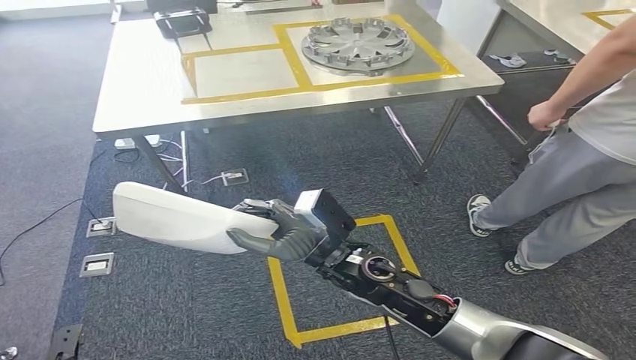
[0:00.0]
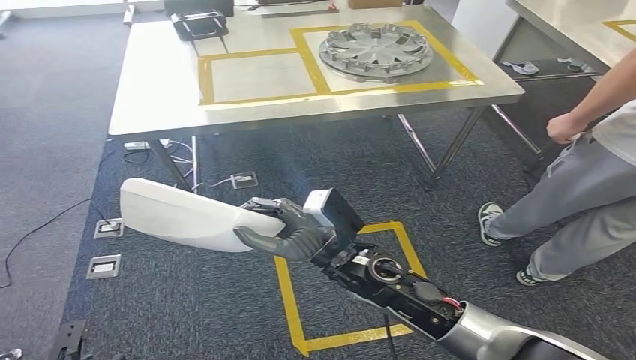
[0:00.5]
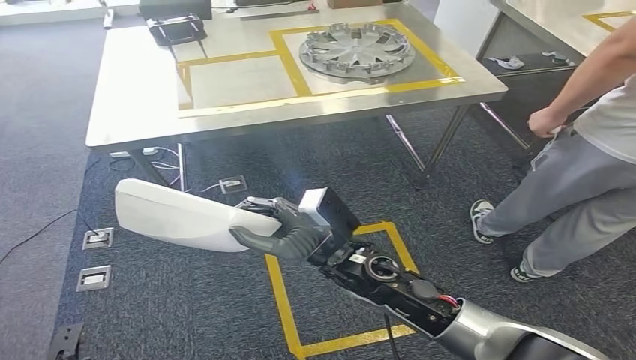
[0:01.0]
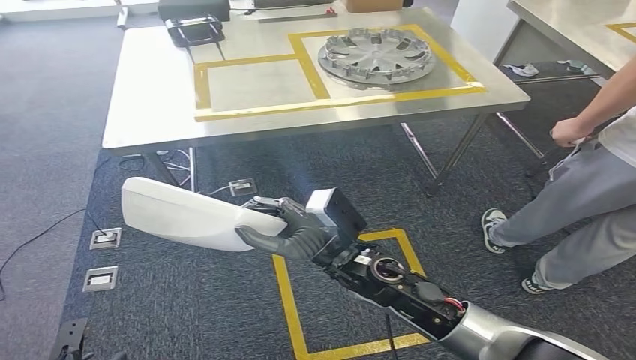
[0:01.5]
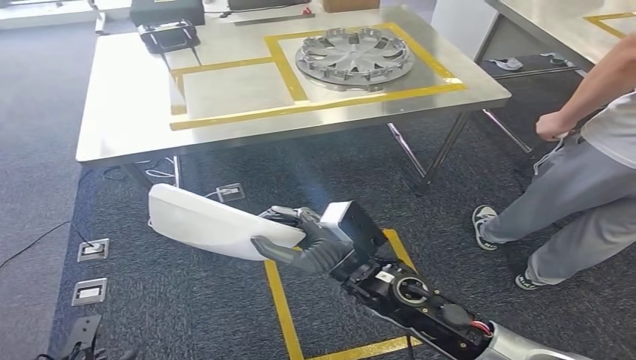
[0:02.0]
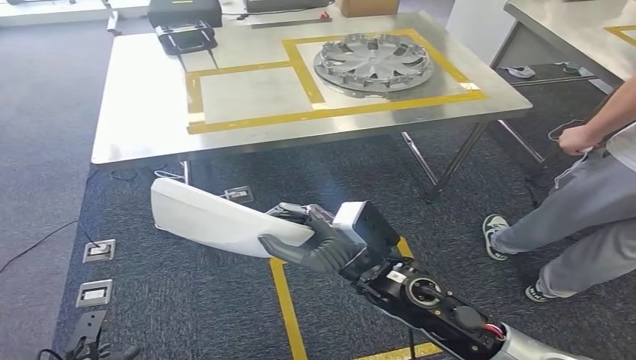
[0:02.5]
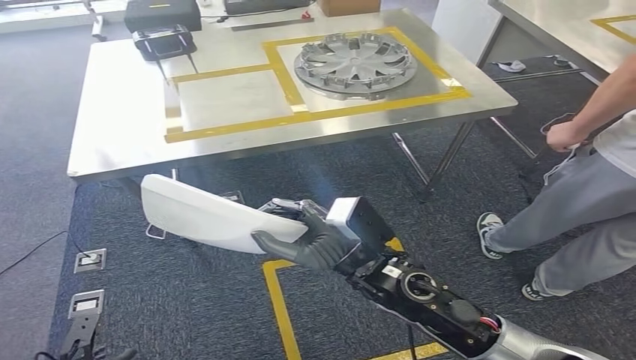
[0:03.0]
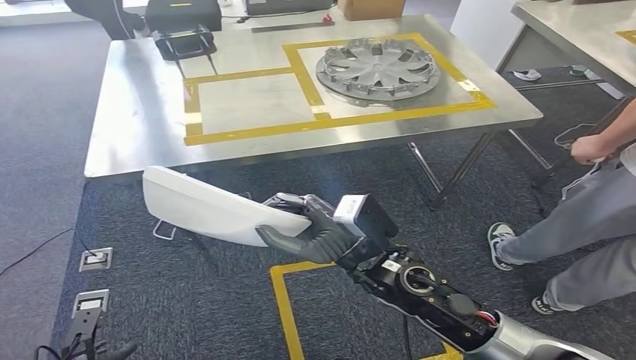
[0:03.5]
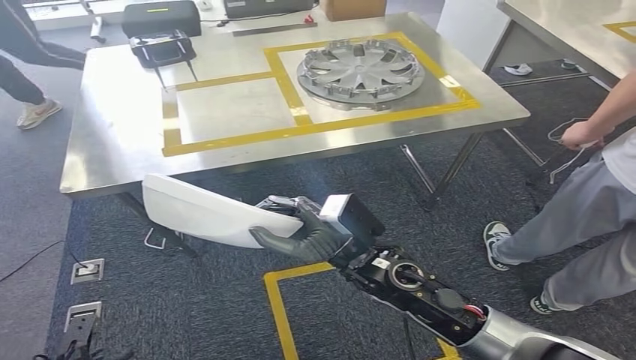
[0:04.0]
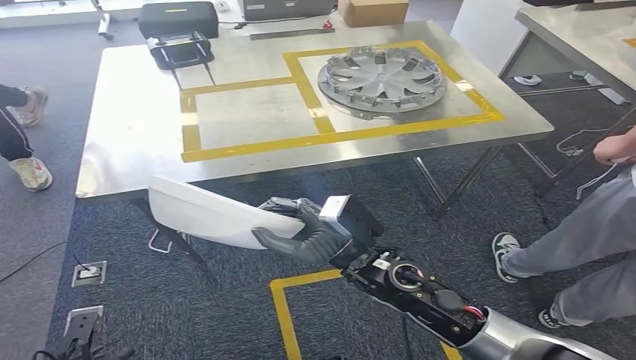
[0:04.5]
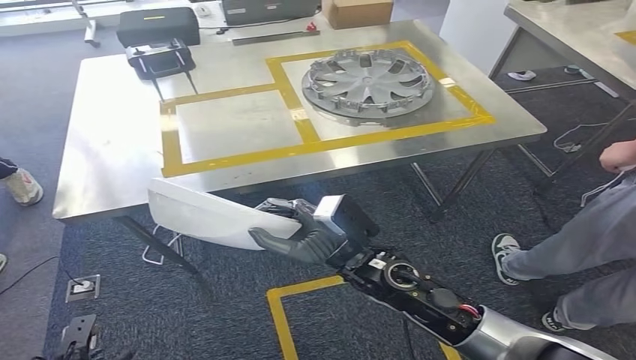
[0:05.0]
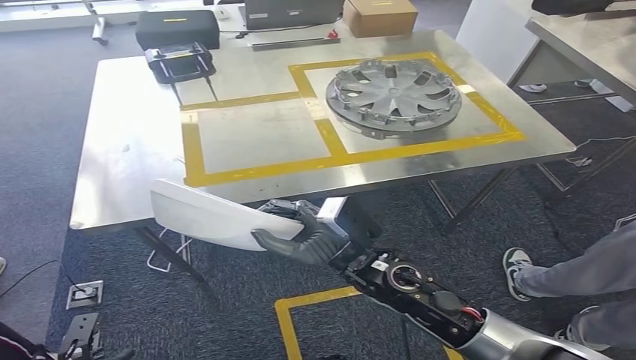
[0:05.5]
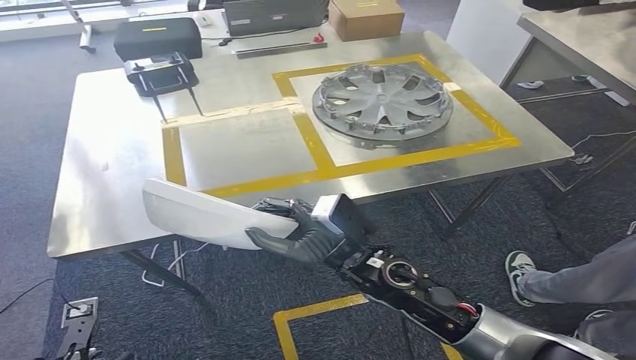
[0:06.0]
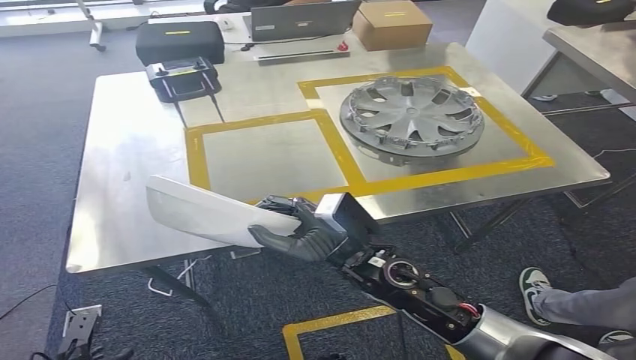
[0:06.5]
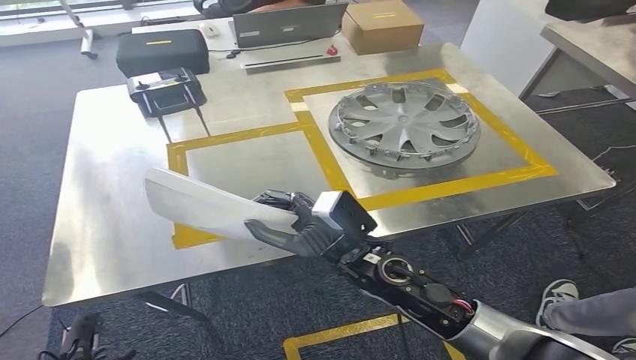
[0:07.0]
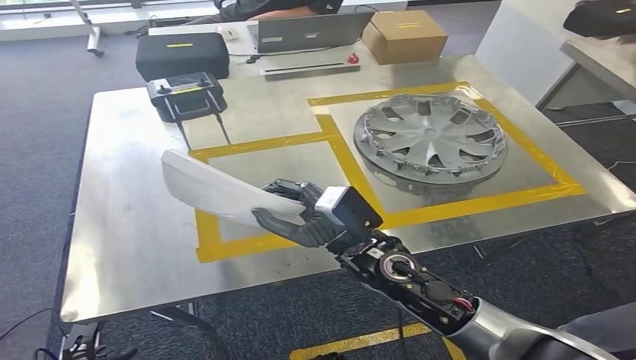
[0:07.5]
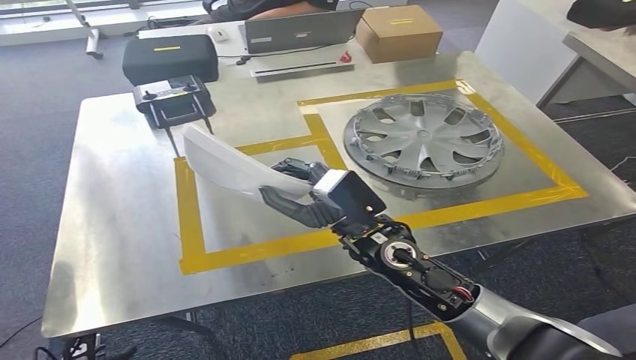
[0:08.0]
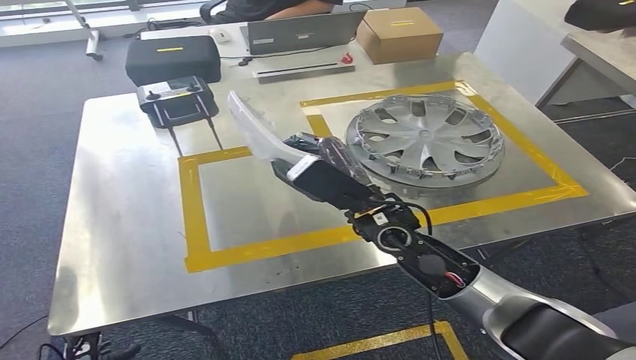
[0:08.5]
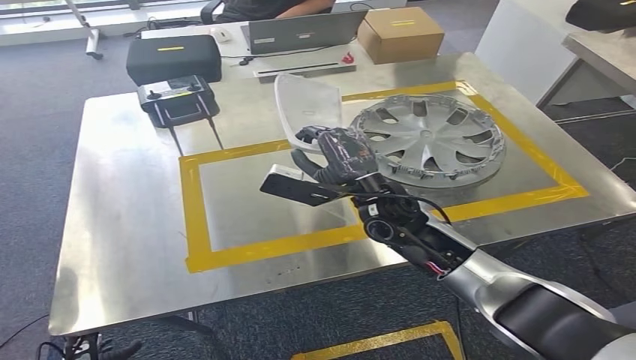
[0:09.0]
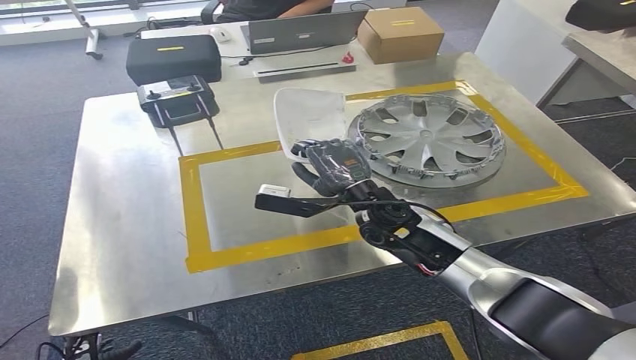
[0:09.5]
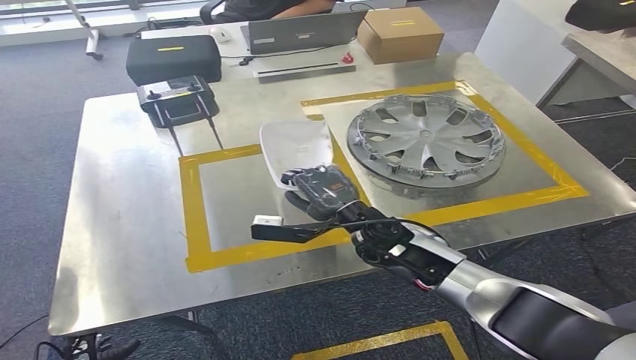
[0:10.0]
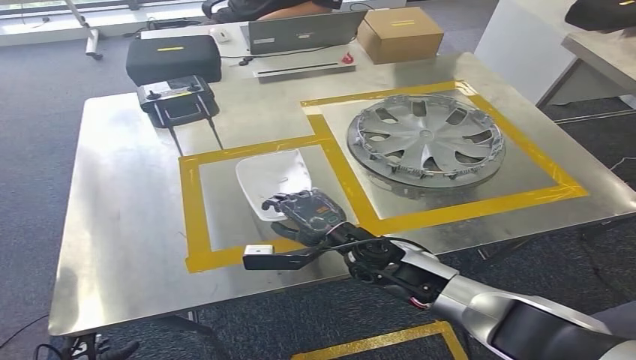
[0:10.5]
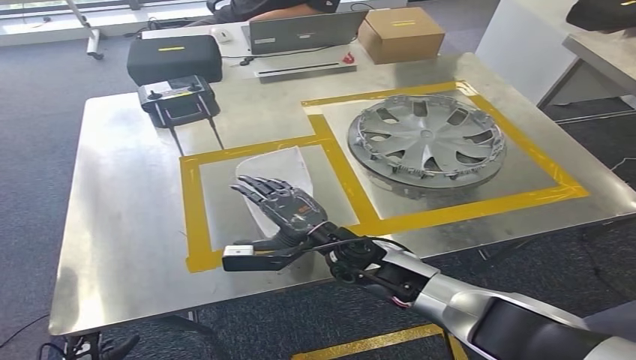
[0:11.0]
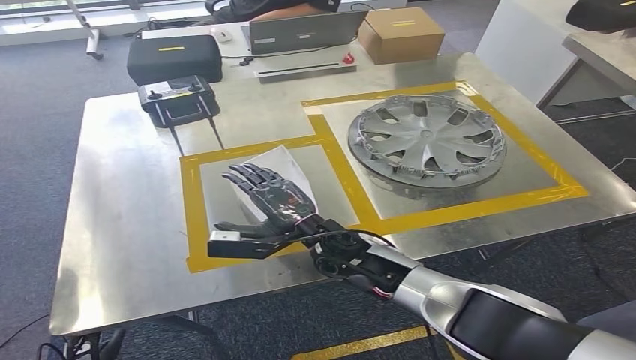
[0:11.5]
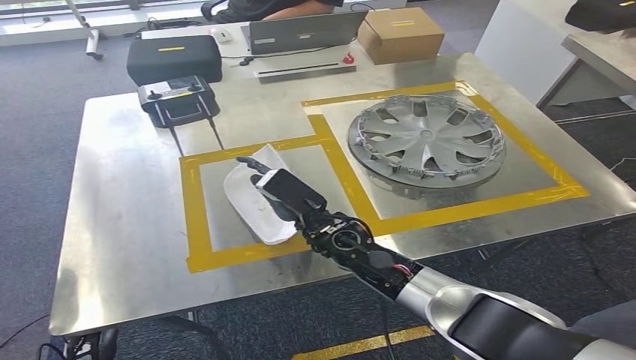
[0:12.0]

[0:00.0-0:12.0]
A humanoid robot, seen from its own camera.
Step, 0:00.0 to 0:06.5: Move the small parts to the workbench.
0:08.0 to 0:10.0: The right hand is displaced downward and forward by roughly 10 cm.
0:10.0 to 0:12.0: The right hand is displaced to the left by about 5 cm.

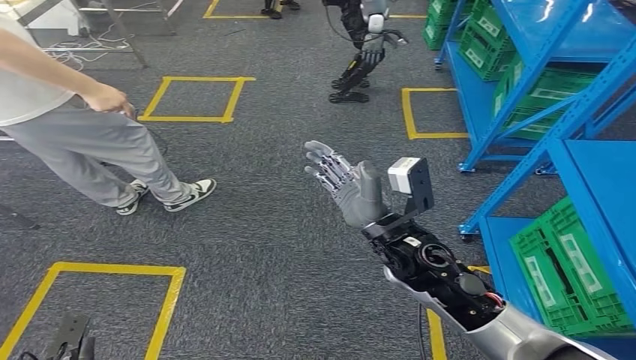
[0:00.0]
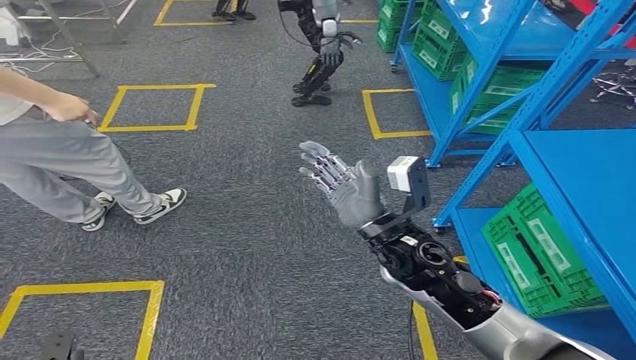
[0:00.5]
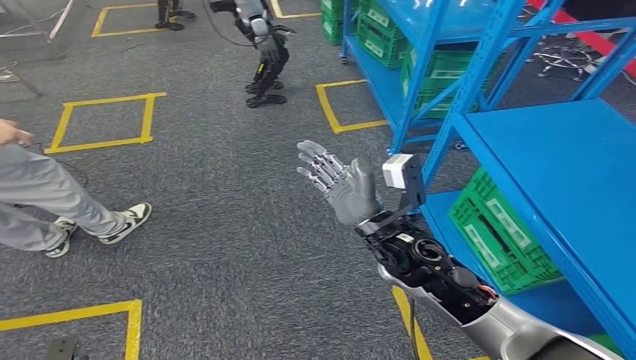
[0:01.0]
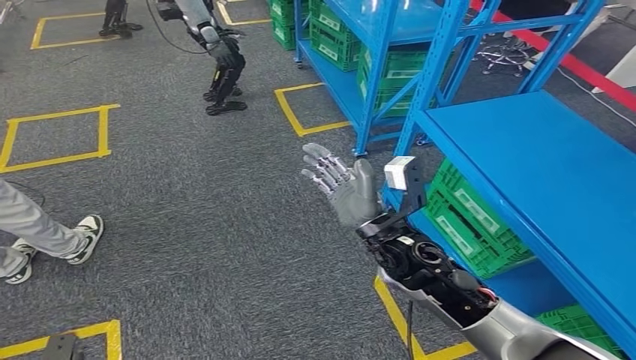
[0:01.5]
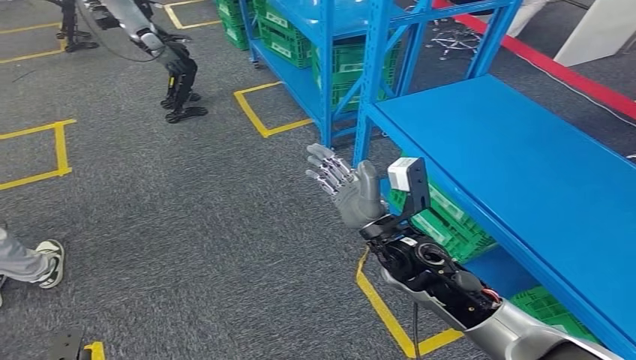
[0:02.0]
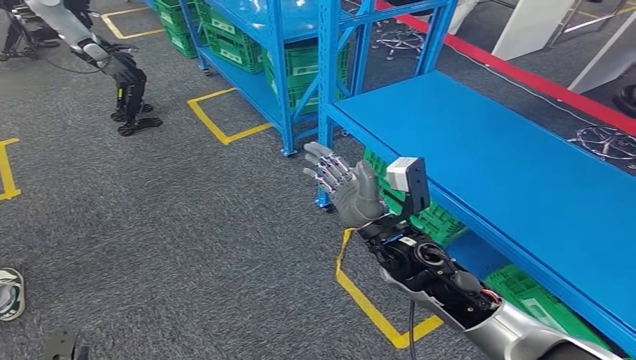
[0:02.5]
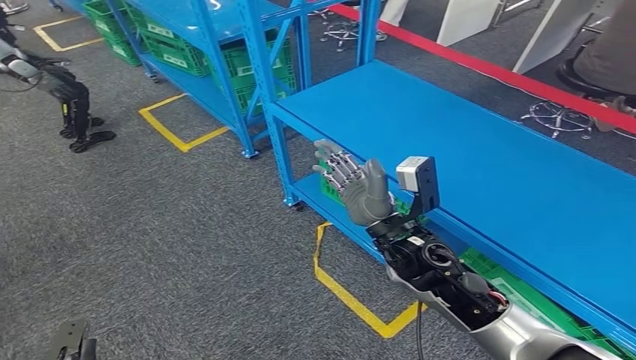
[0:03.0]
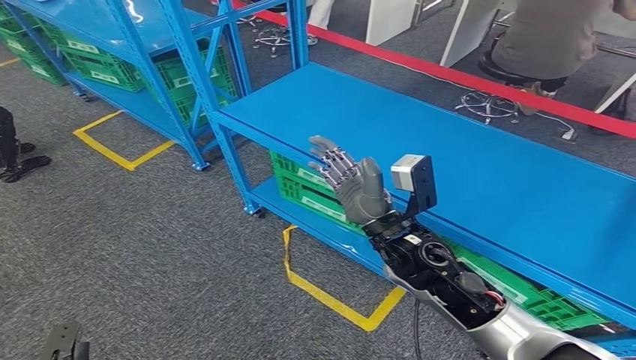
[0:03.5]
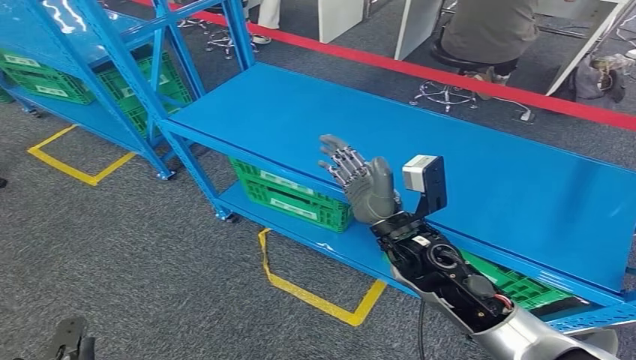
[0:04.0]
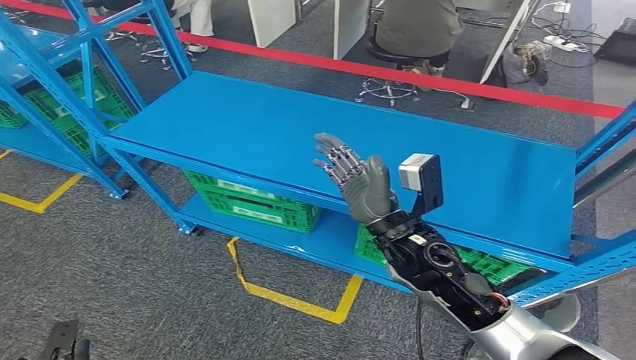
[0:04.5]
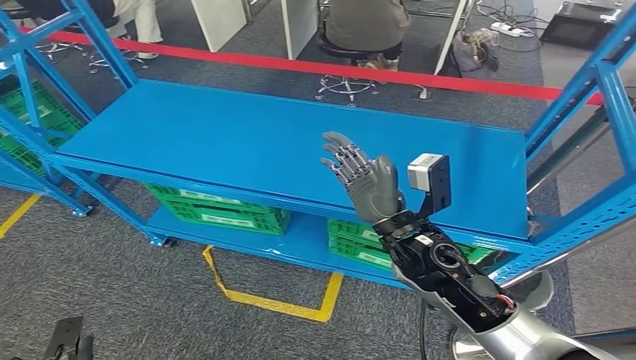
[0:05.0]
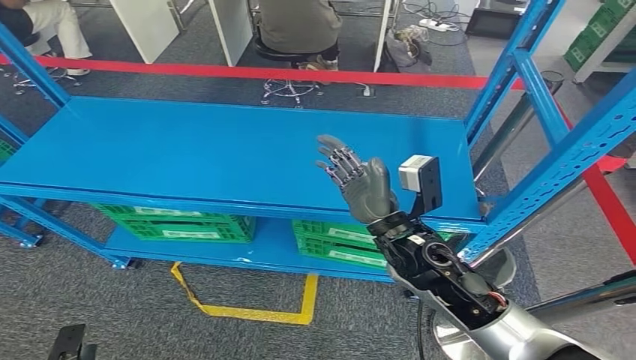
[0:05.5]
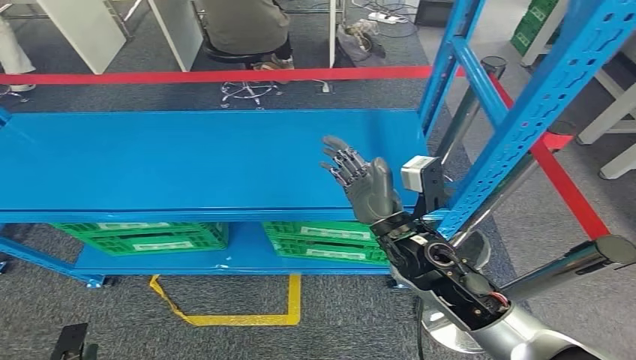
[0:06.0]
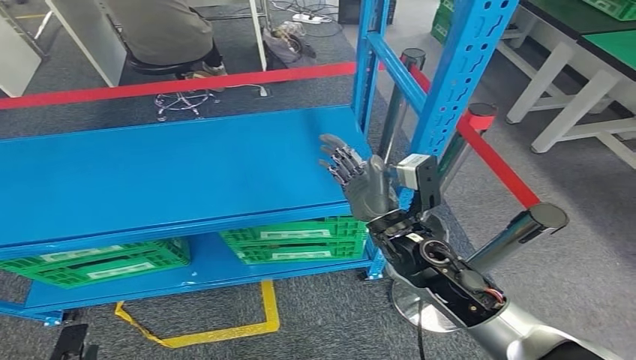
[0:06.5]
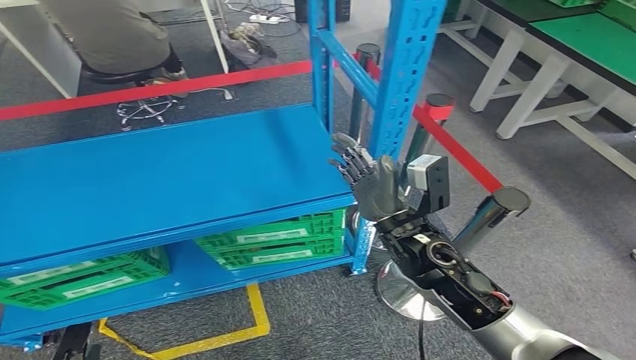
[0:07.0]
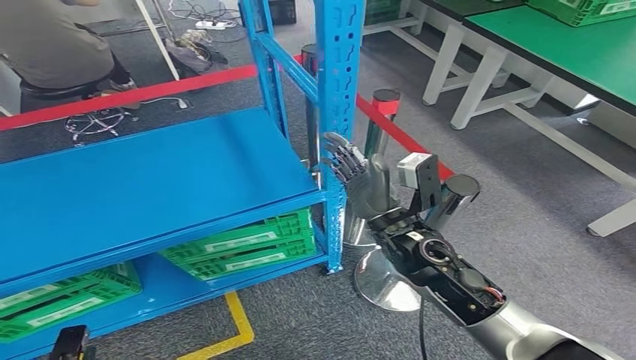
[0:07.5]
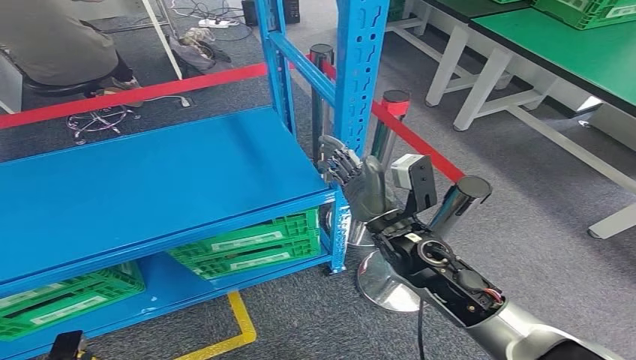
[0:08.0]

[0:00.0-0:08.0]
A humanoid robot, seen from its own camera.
Step, 0:00.0 to 0:08.0: Return to the initial position at the workbench.
